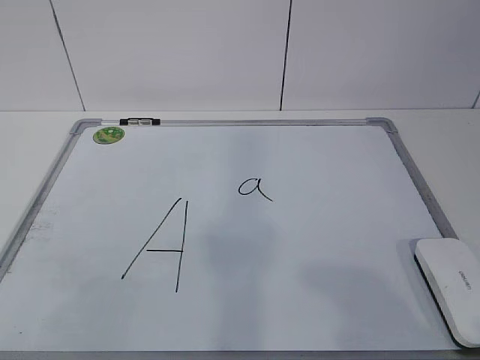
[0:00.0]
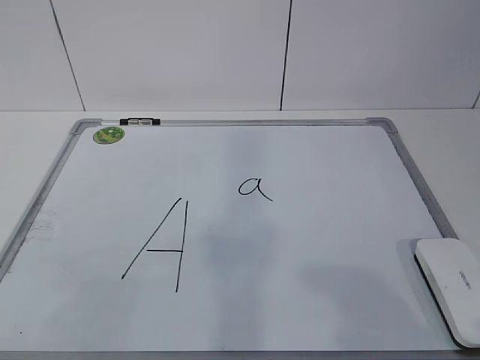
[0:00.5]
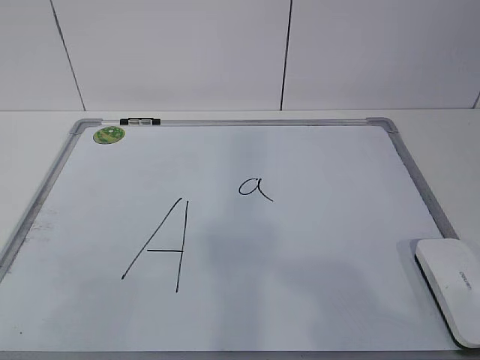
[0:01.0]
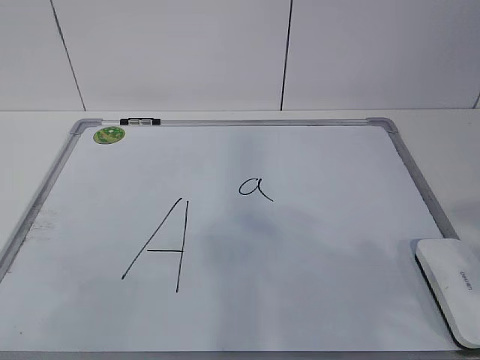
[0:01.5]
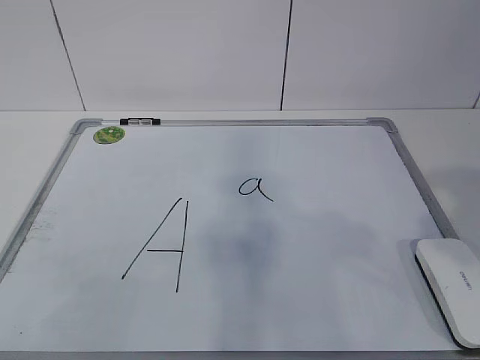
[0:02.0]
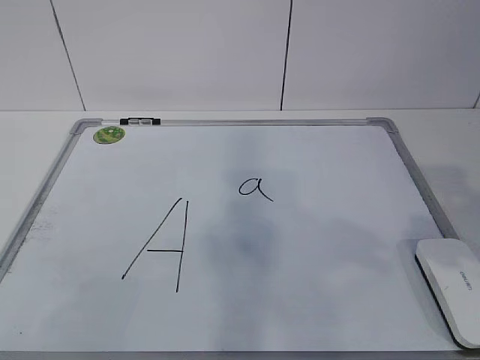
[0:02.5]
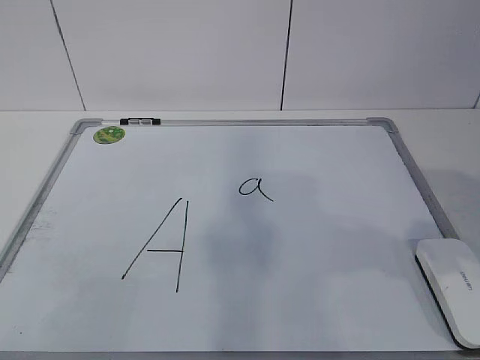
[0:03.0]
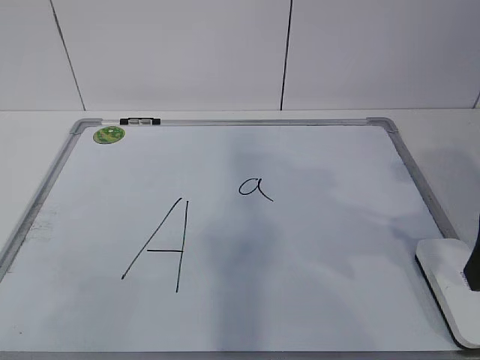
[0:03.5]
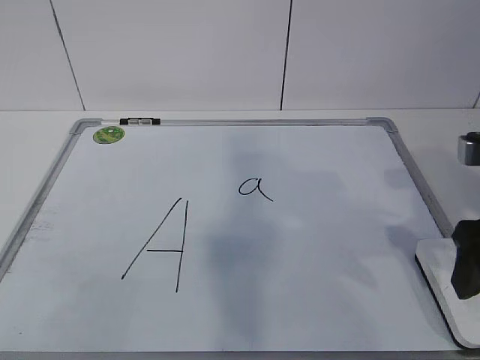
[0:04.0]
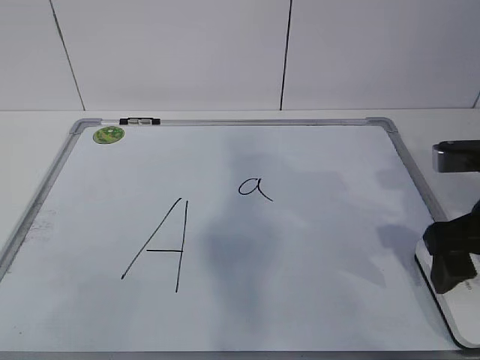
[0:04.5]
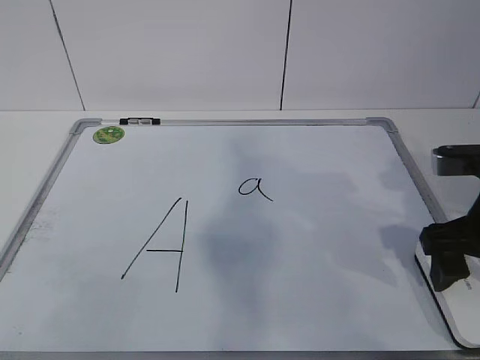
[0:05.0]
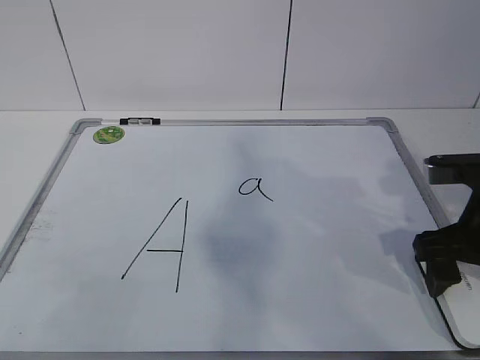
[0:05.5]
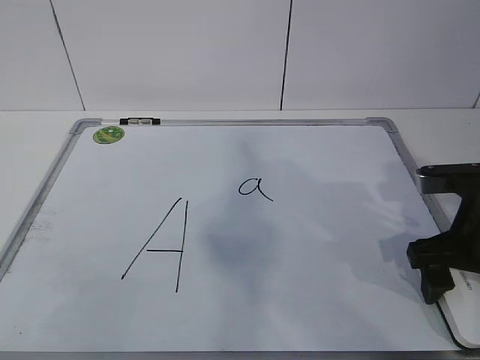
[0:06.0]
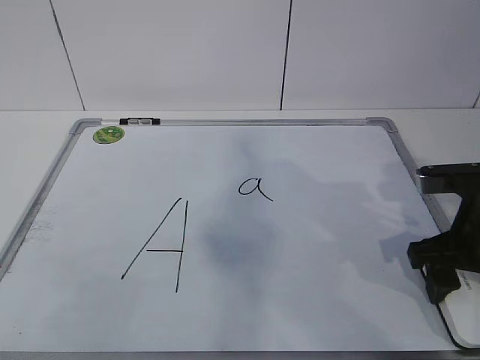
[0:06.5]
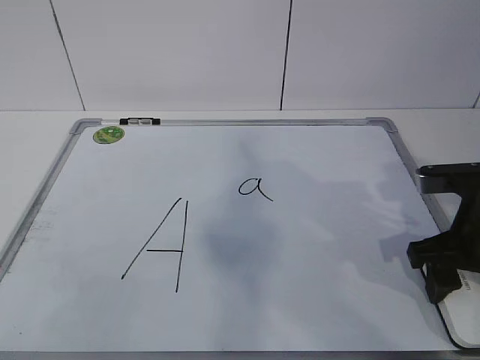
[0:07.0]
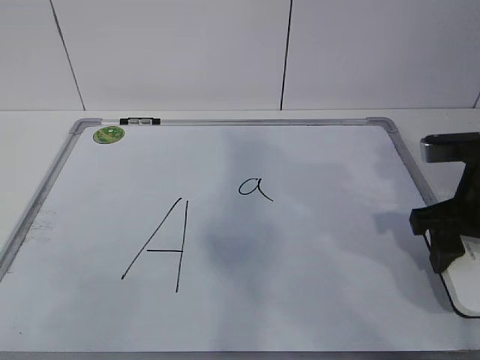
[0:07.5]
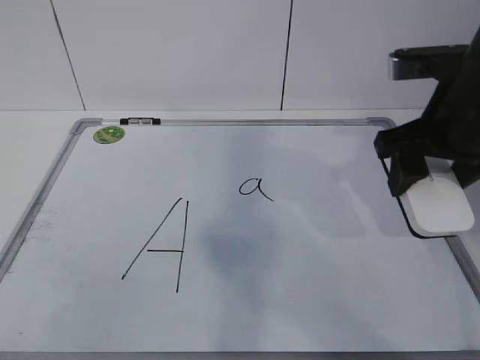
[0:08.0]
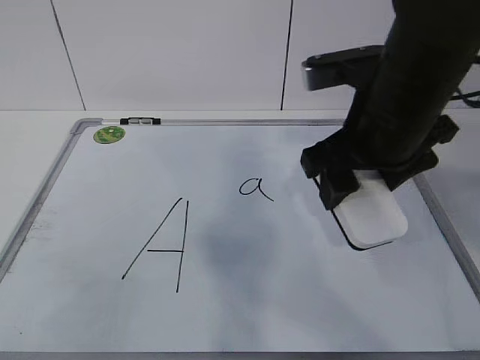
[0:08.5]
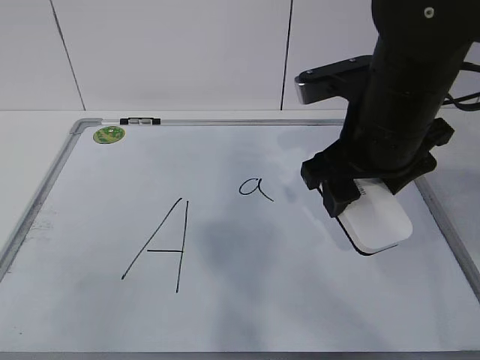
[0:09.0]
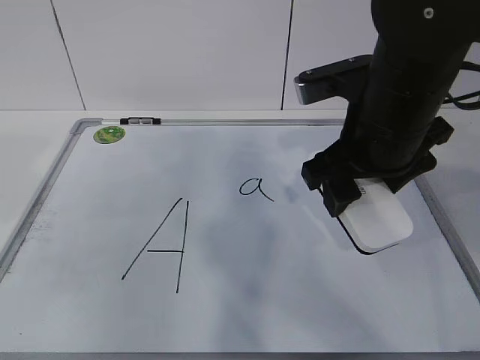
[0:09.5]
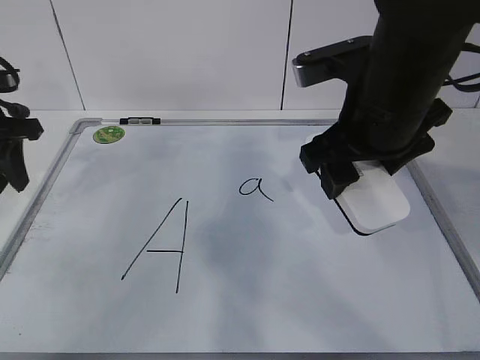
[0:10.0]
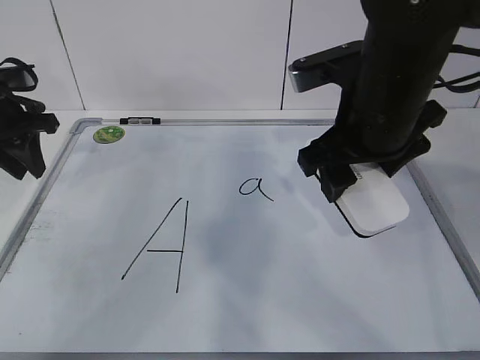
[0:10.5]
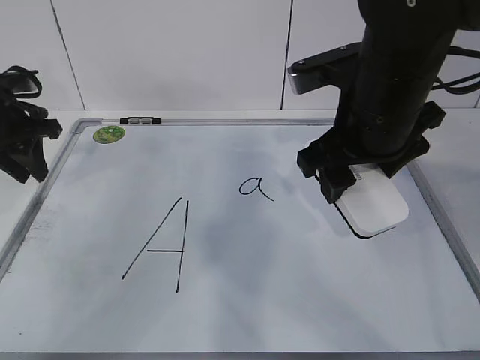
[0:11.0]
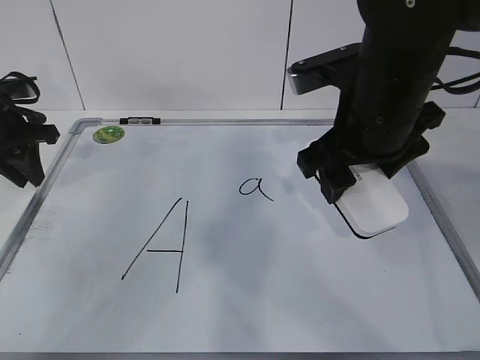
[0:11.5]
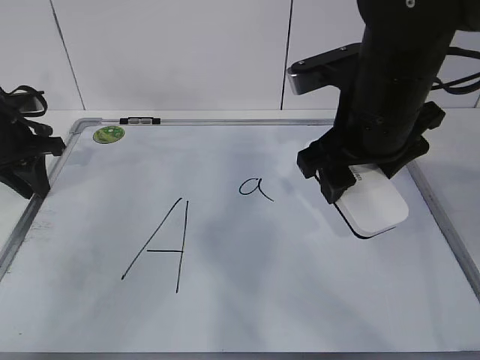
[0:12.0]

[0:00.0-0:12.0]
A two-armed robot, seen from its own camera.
Task of the whole recording: pick up the eraser on the blackboard and erase the letter "a".
Step, 0:00.0 to 0:05.5: Grab the eraser with your right hand.
Step, 0:06.0 to 0:10.5: Hold the drawing board steady with your left hand.
0:02.0 to 0:04.0: The right gripper is displaced forward and downward by roughly 15 cm, and opens its fingers.
0:04.0 to 0:06.0: The right gripper is displaced downward by roughly 5 cm.
0:06.0 to 0:08.0: The right gripper heads upward, covering some 10 cm, and closes up.
0:08.0 to 0:10.0: The right gripper is displaced to the left by about 10 cm; the left gripper shifts some 40 cm forward.
0:10.0 to 0:12.0: The left gripper travels downward by some 5 cm.

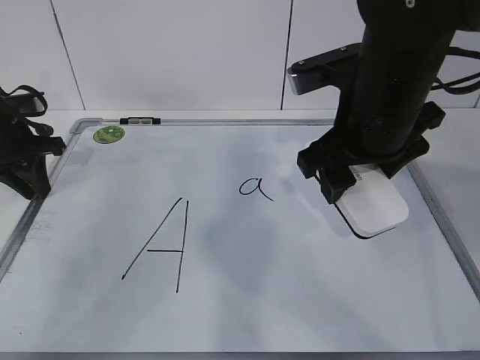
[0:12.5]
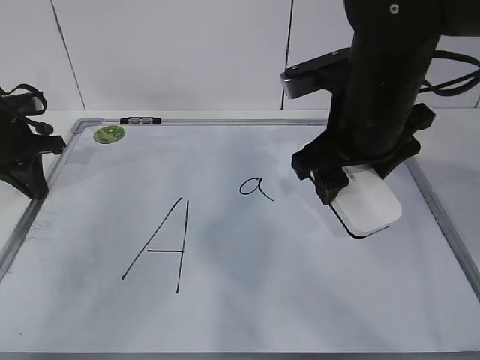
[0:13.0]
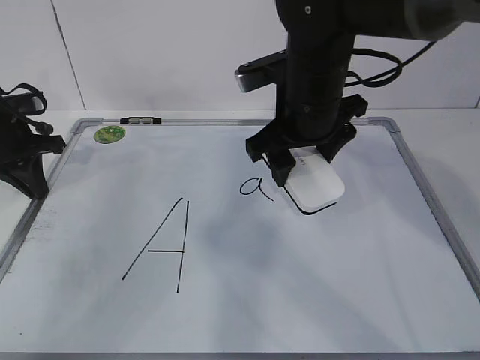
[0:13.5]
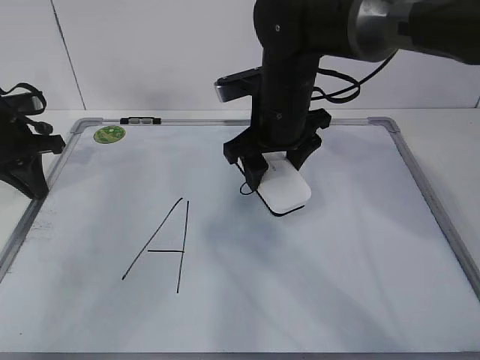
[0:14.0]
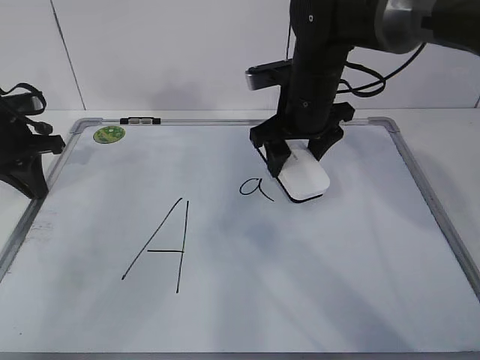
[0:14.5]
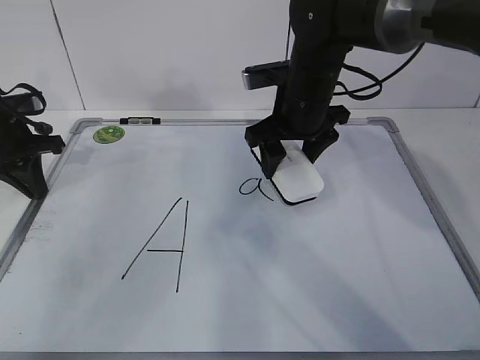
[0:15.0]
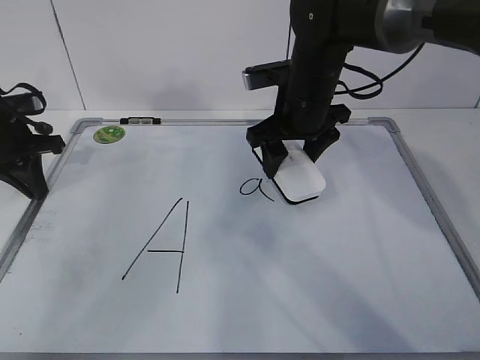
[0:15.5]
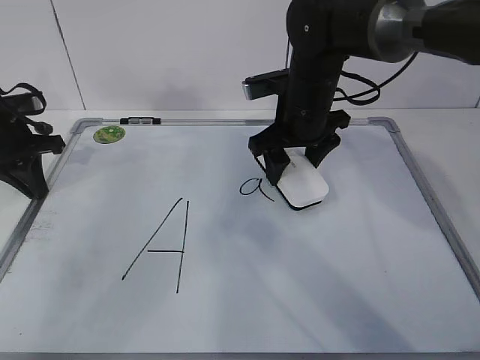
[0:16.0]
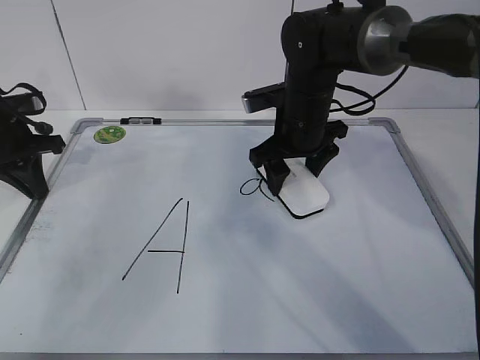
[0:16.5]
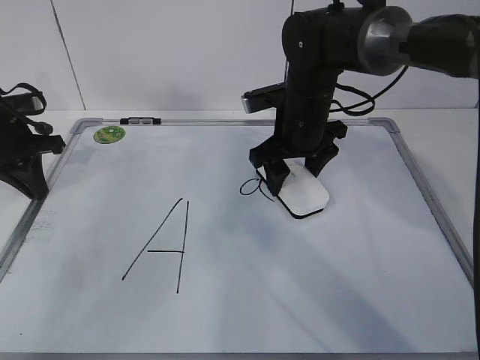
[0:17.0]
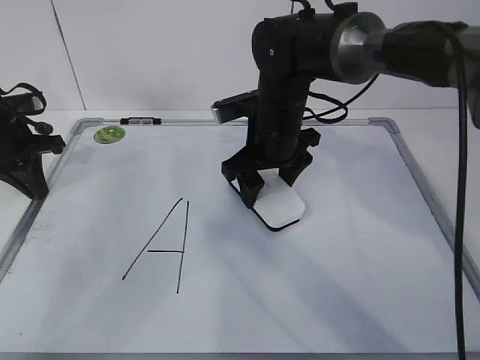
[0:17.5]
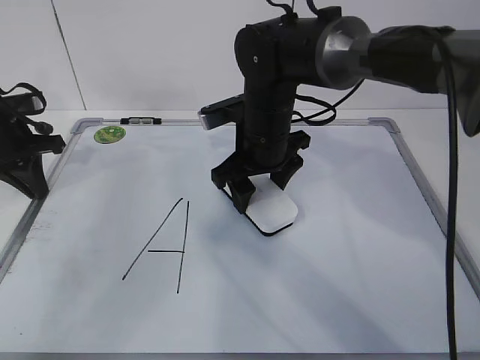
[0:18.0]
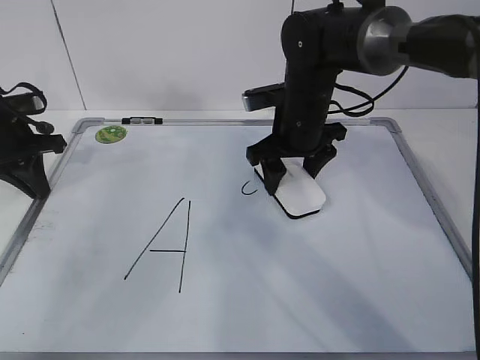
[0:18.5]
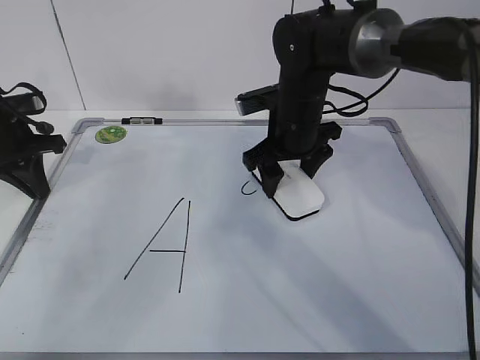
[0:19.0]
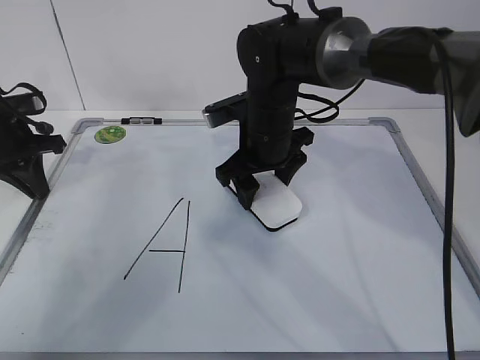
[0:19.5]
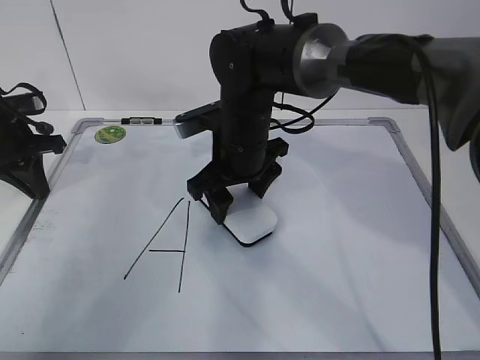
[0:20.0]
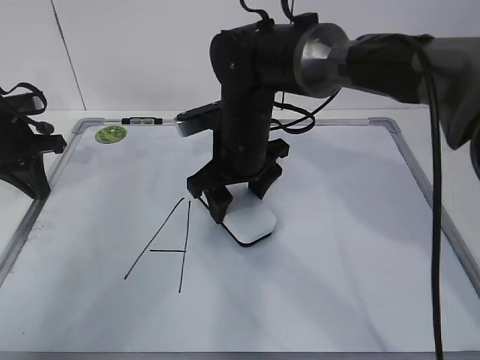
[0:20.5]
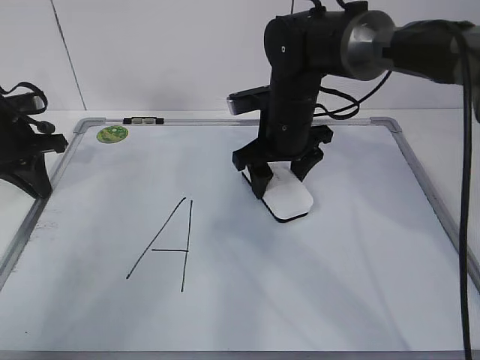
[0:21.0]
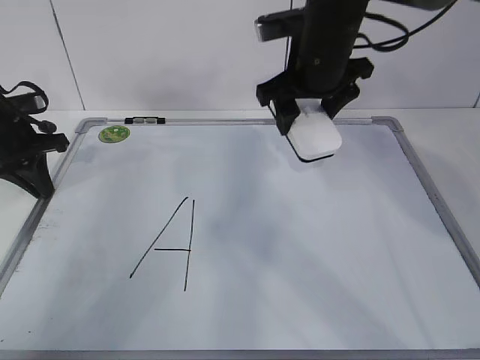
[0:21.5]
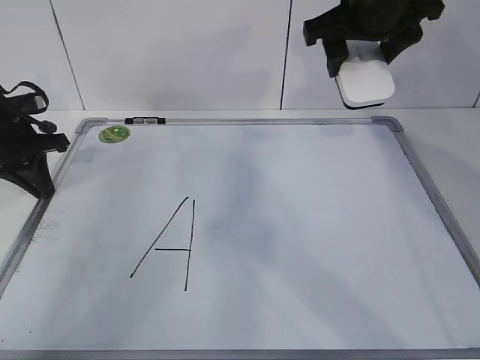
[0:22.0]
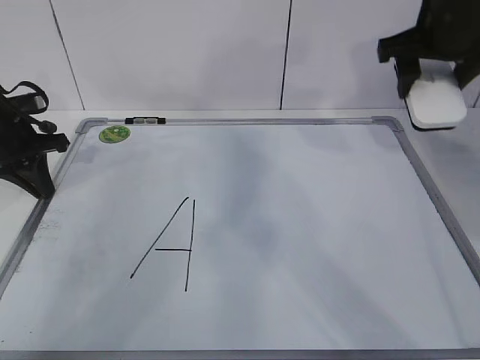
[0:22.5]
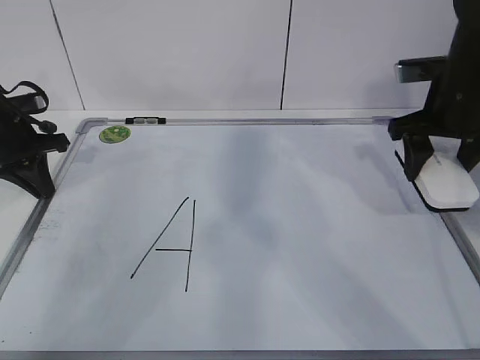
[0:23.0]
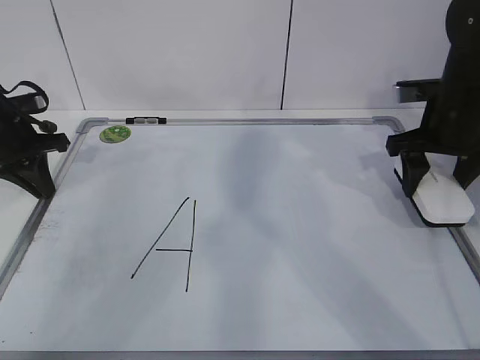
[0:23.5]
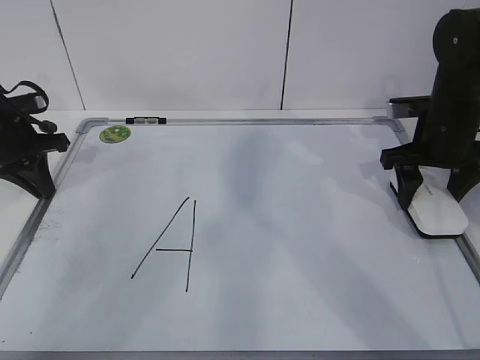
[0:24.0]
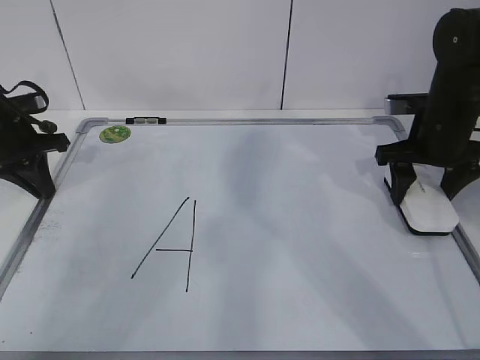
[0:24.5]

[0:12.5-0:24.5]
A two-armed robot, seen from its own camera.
Task of the whole recording: pick up the eraser on the blackboard and erase the letter "a".
Step, 0:12.5 to 0:17.5: Erase the letter a with your right hand.
Step, 0:18.0 to 0:20.5: Put down the eraser with your right hand.
0:12.5 to 0:14.5: The left gripper closes, while the right gripper is displaced forward and downward by approximately 15 cm.
0:14.5 to 0:16.5: The grippers move only a little.
0:16.5 to 0:18.5: There are only small adjustments of the grippers.
0:18.5 to 0:20.5: The right gripper moves to the left, some 10 cm.
0:20.5 to 0:22.5: The right gripper moves to the right and upward, roughly 25 cm.
0:22.5 to 0:24.5: The right gripper moves downward, about 15 cm.

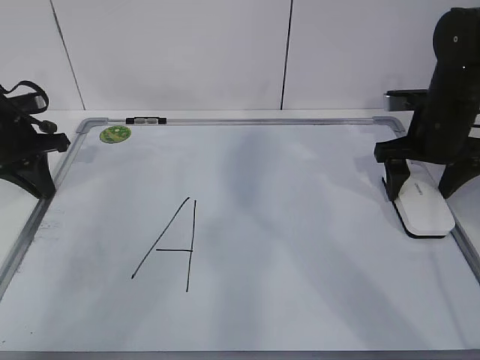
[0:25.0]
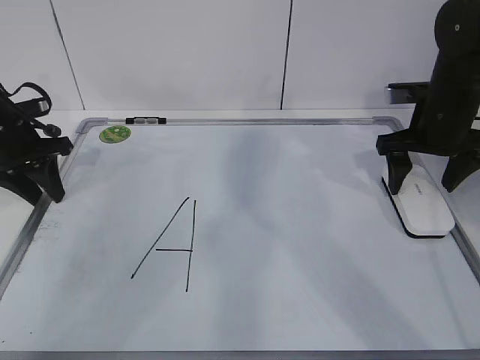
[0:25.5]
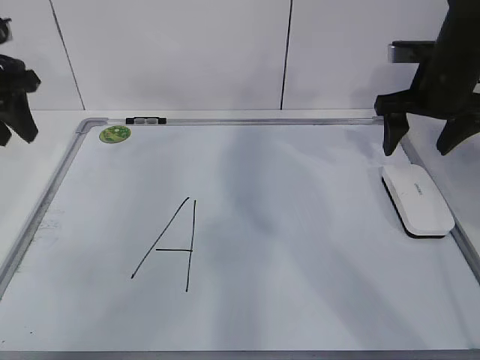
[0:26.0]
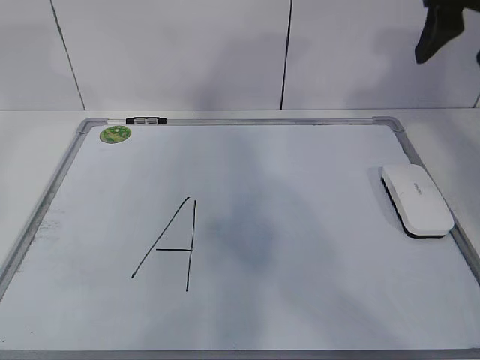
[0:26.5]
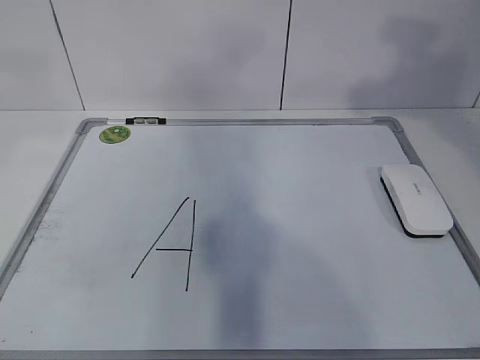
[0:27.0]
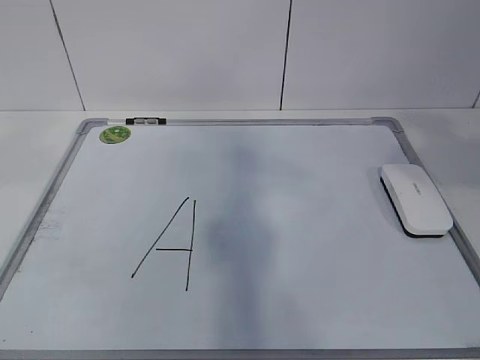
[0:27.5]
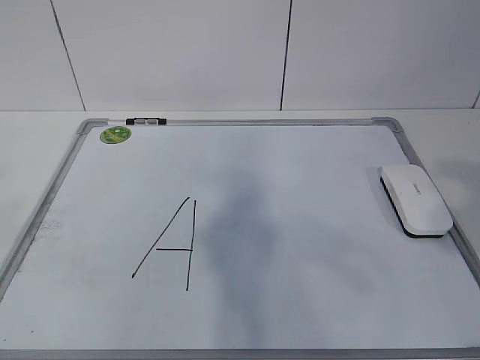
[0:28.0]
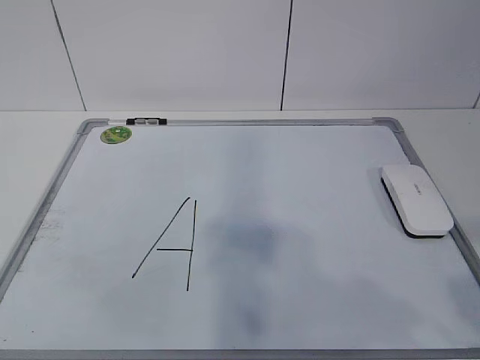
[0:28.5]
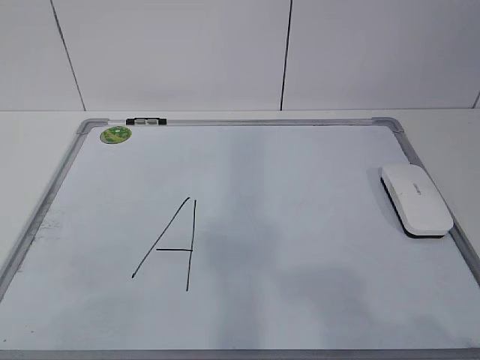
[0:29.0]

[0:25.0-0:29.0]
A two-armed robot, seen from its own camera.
Task of the whole recording: pick up the eraser on the blackboard and erase the letter "a".
0:25.0 to 0:27.0: Both grippers move upward and backward, some 30 cm. The left gripper opens. The right gripper closes up.
0:27.0 to 0:29.0: The two grippers go roughly 30 cm backward and downward.
